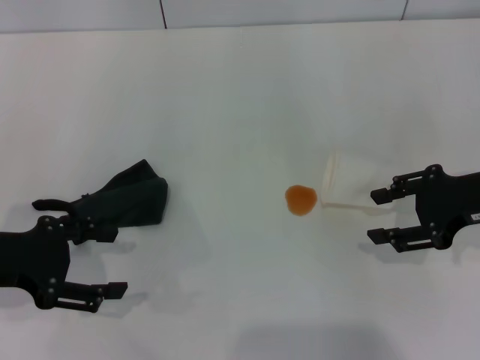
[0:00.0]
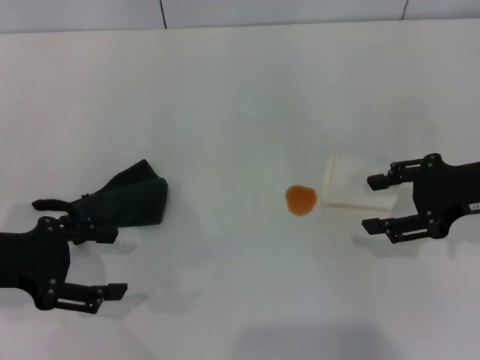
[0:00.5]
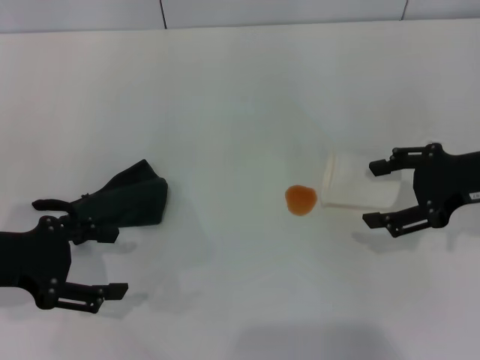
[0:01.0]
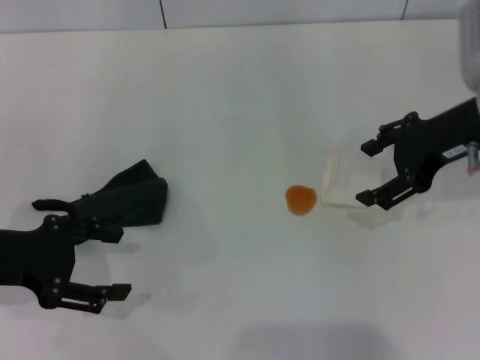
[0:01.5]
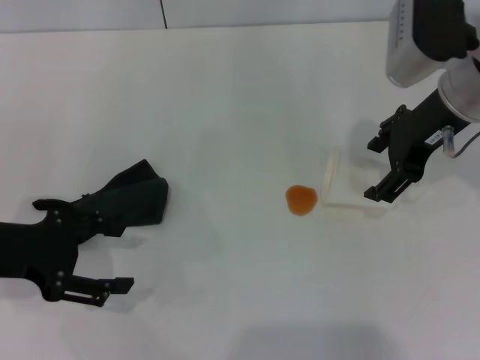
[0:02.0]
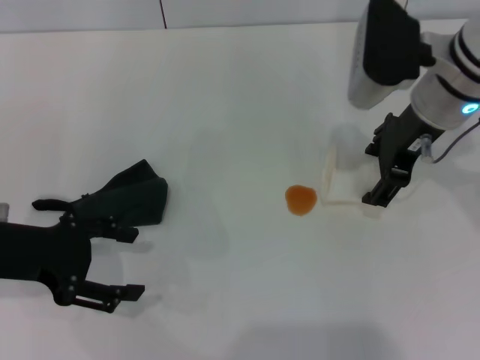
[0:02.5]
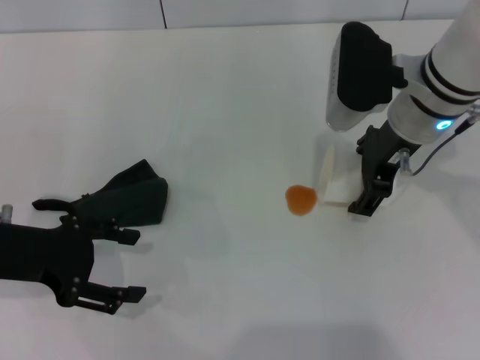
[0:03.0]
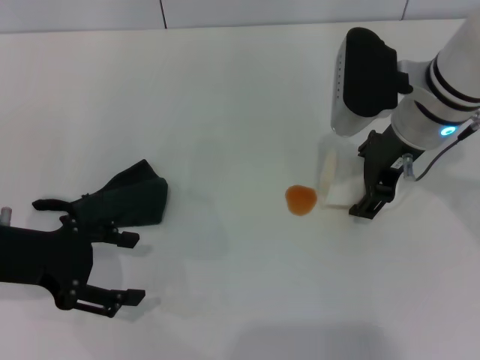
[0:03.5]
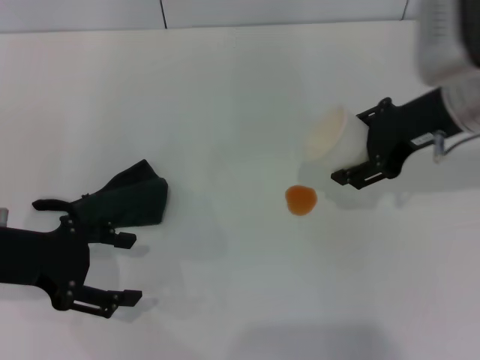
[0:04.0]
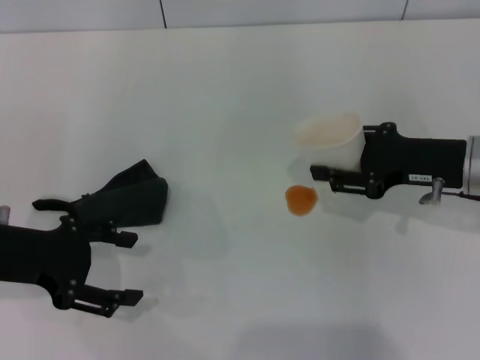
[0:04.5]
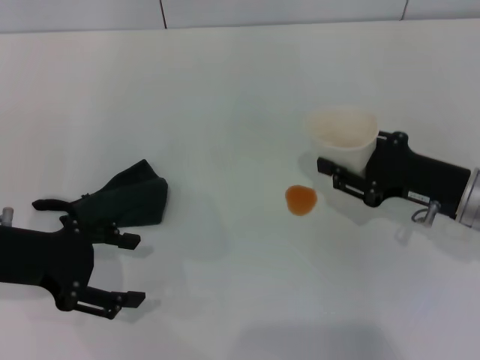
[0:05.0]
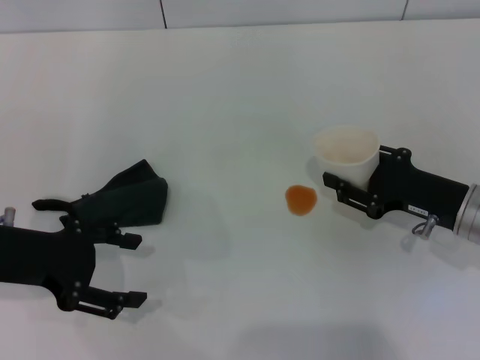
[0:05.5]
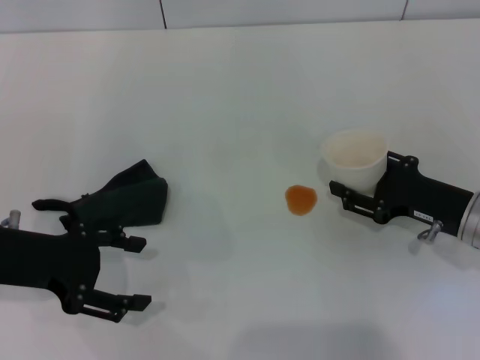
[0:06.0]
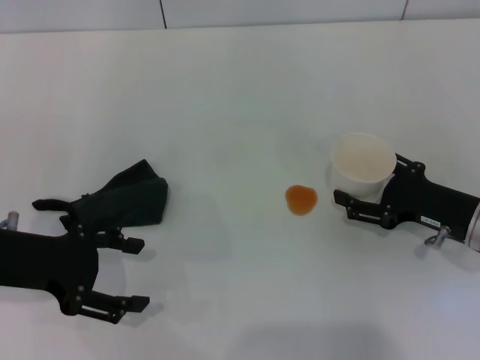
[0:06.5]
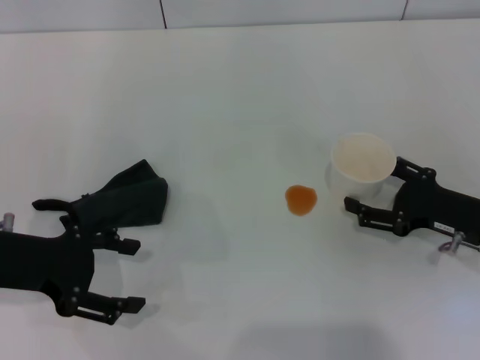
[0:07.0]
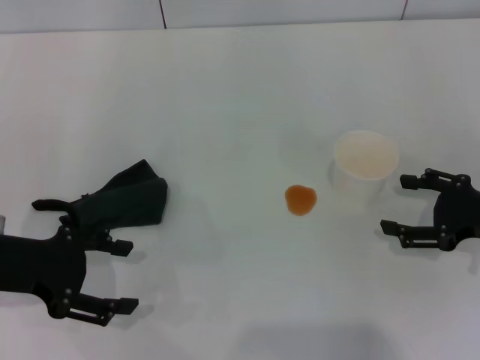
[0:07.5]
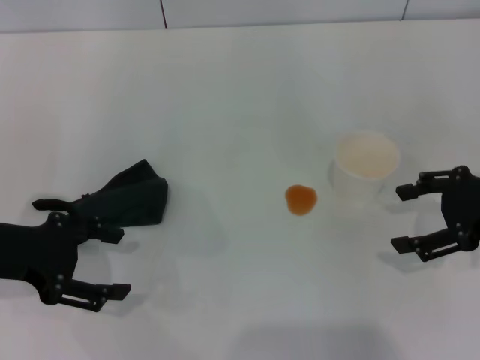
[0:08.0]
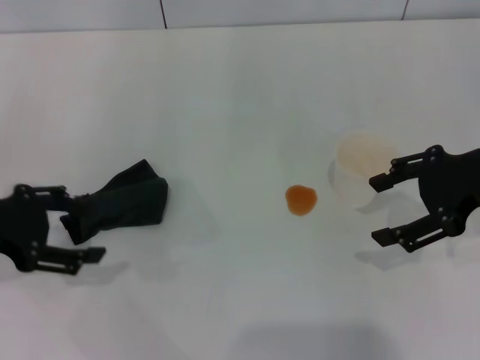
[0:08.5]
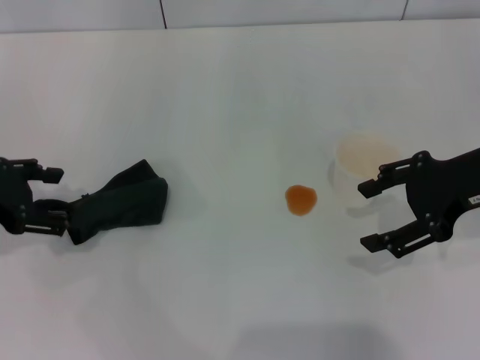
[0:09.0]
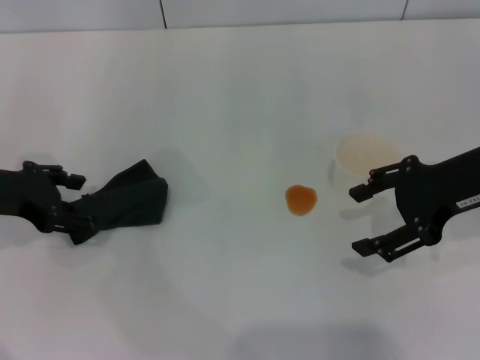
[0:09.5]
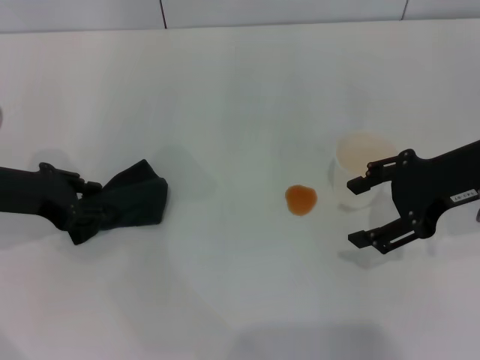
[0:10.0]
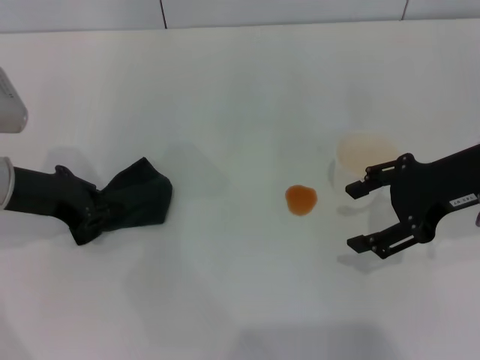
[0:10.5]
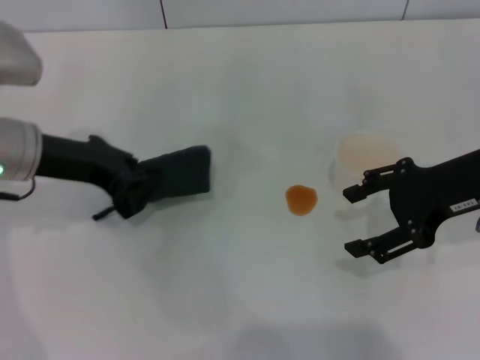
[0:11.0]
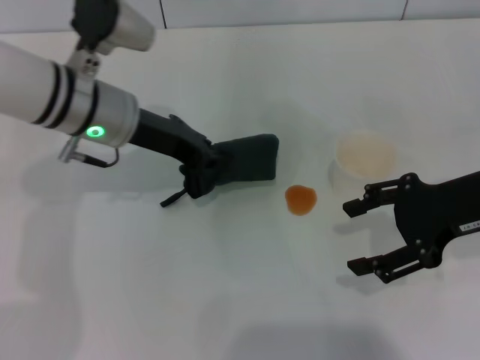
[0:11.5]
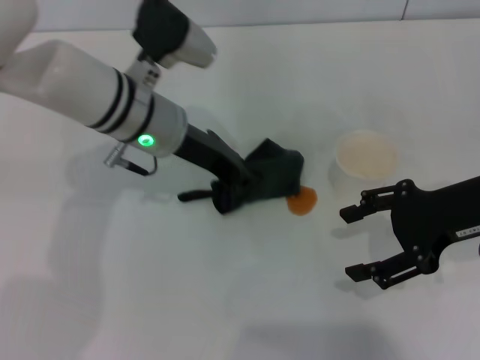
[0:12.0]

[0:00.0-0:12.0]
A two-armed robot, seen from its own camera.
Step, 0:00.0 to 0:03.0: Grasp the paper cup with the right gripper.
Step, 0:03.5 to 0:07.0: Stand the paper cup upright with the right gripper.
Step, 0:07.5 to 0:10.5: Grasp the rag with the left gripper.
0:00.0 to 0:02.0: The right gripper goes some 15 cm to the left, forward and upward, and opens up.
0:02.0 to 0:04.0: The right gripper closes up.
0:04.0 to 0:06.0: The right gripper travels downward and backward by some 15 cm, and closes its fingers.
0:06.0 to 0:08.0: The right gripper shifts some 10 cm upward, and opens up.
0:08.0 to 0:10.0: The right gripper shifts roughly 5 cm to the left; the left gripper moves forward, approximately 5 cm.
0:10.0 to 0:12.0: The left gripper shifts some 20 cm to the right, and closes its fingers.

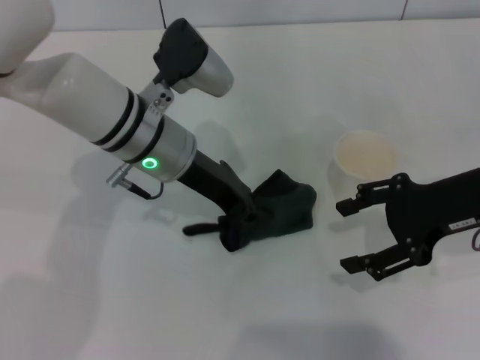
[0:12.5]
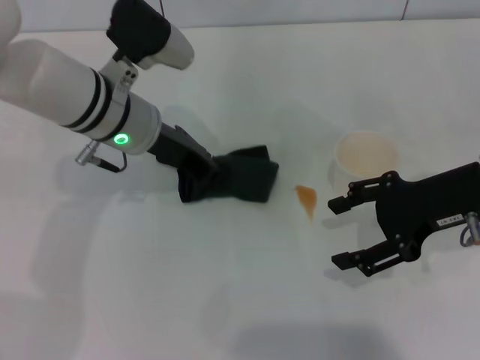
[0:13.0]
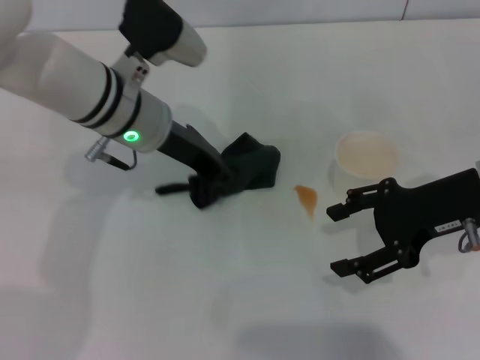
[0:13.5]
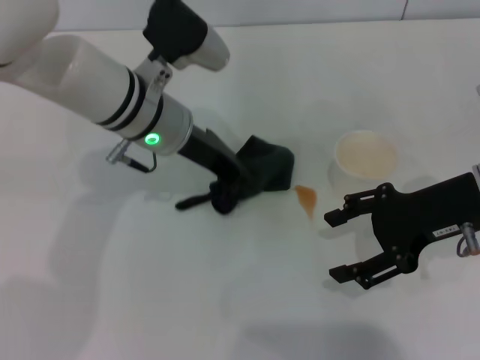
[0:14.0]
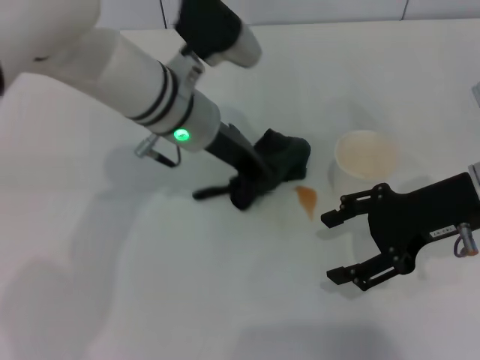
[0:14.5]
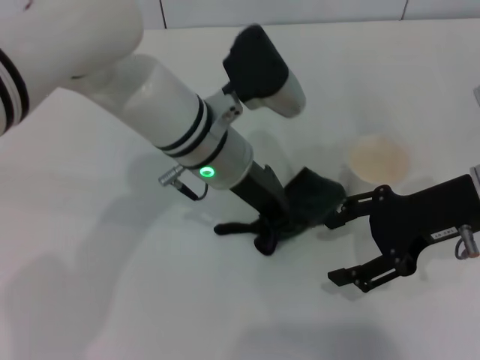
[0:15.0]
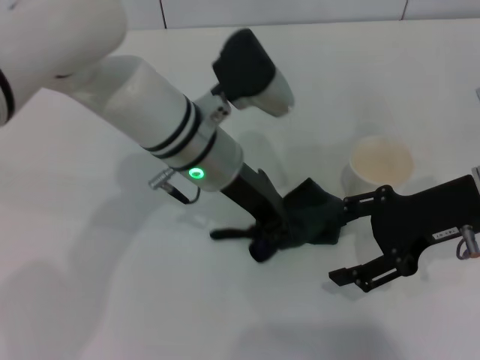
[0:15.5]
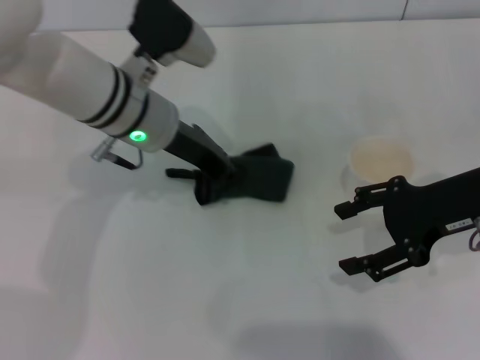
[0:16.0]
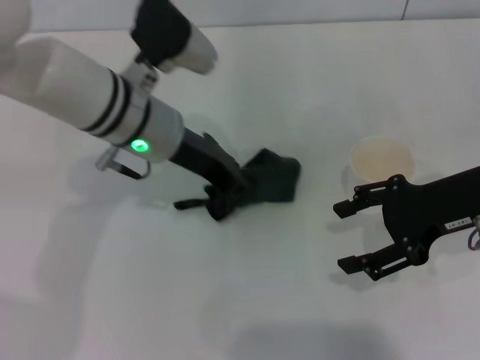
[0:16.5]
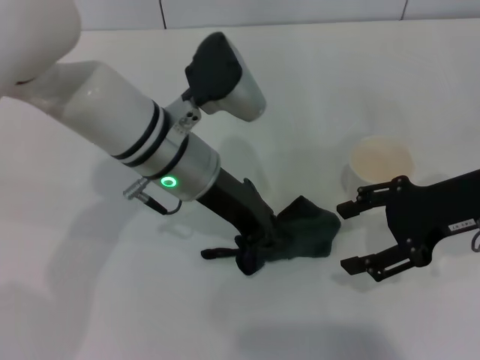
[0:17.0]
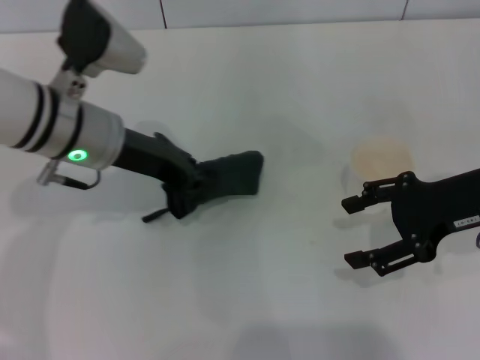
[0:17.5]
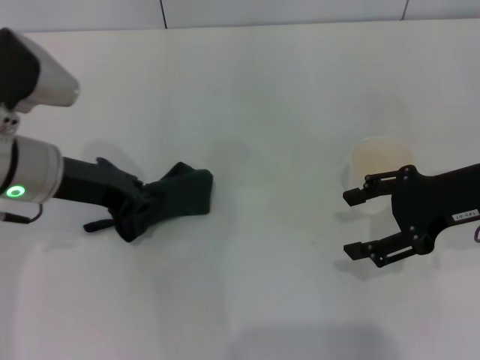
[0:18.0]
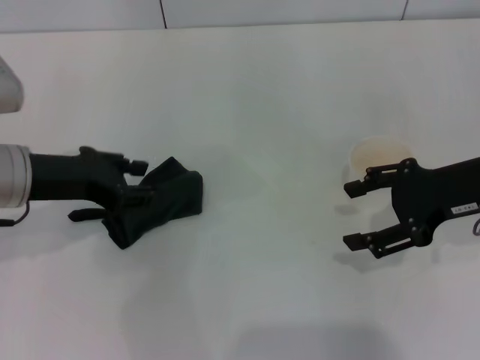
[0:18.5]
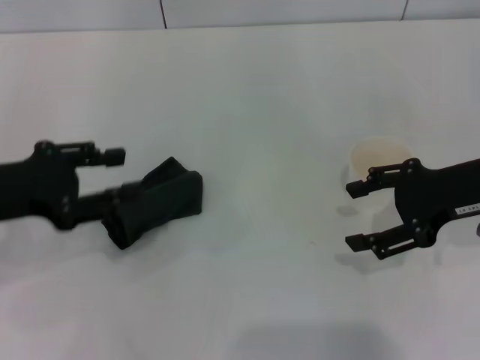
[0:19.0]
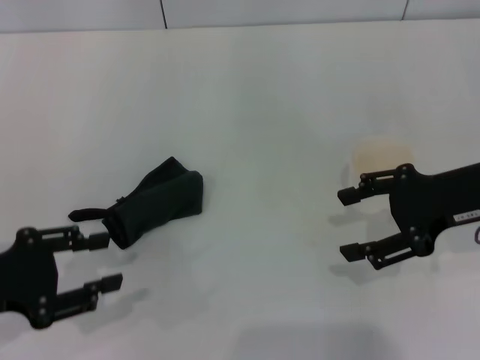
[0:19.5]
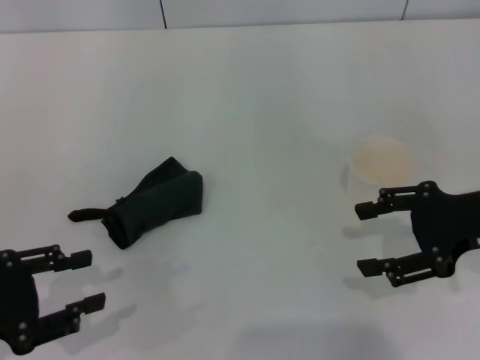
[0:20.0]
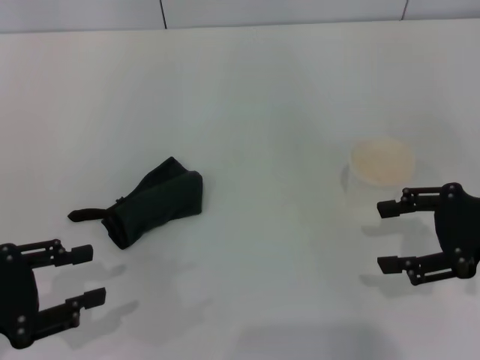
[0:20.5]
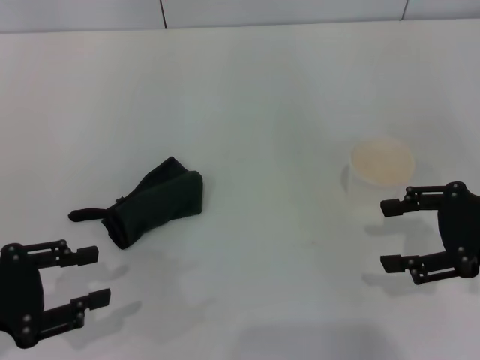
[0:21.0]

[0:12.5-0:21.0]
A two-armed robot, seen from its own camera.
Step, 0:12.5 to 0:18.0: Wipe the stains off the table with the left gripper.
0:16.5 to 0:19.0: The left gripper moves to the left and backward, roughly 20 cm, and opens up.
0:19.0 to 0:21.0: The right gripper shifts by approximately 5 cm. Meanwhile the left gripper travels backward by approximately 10 cm.

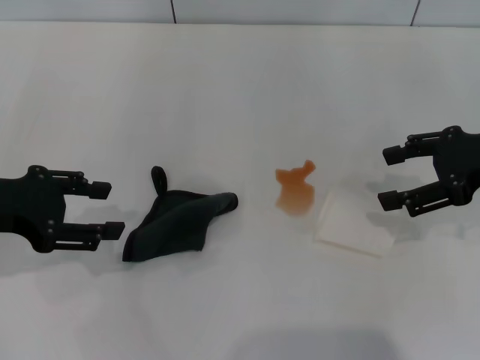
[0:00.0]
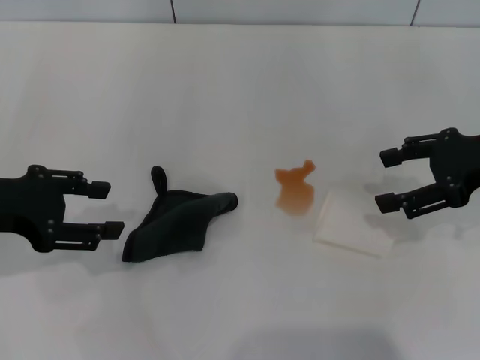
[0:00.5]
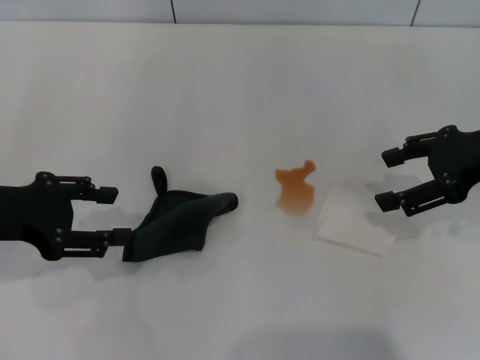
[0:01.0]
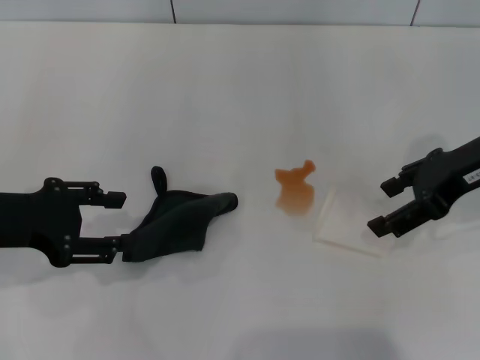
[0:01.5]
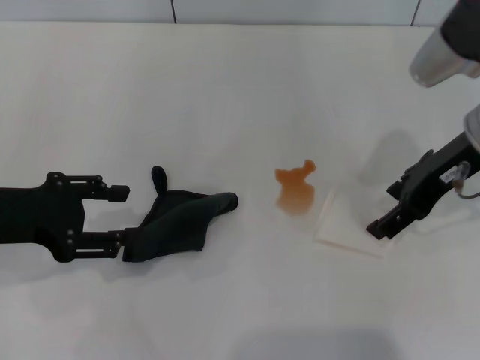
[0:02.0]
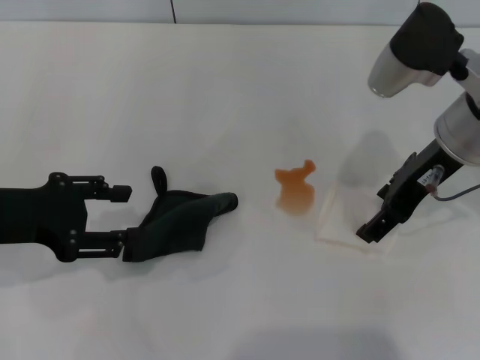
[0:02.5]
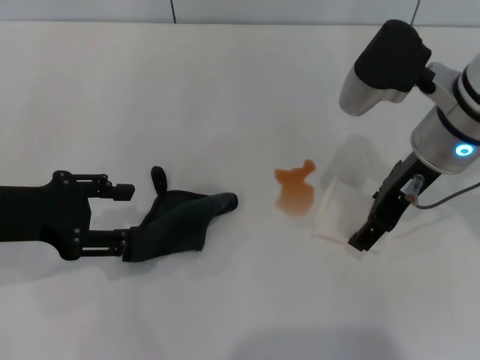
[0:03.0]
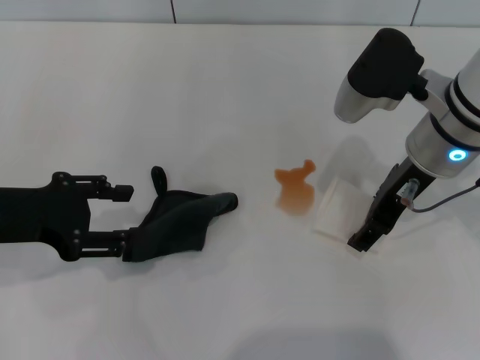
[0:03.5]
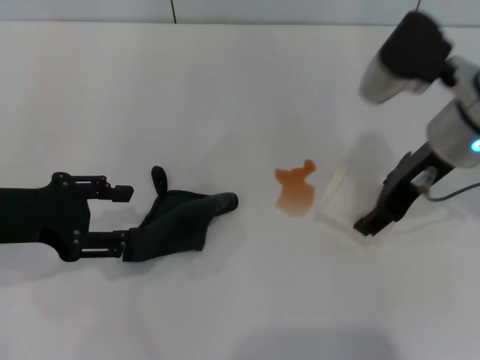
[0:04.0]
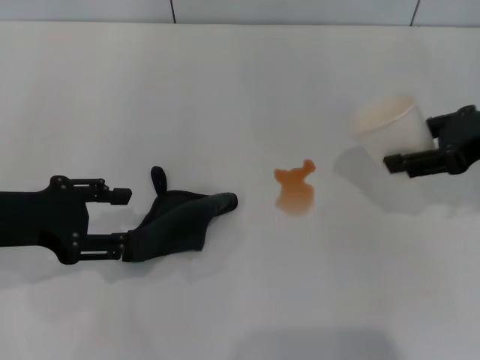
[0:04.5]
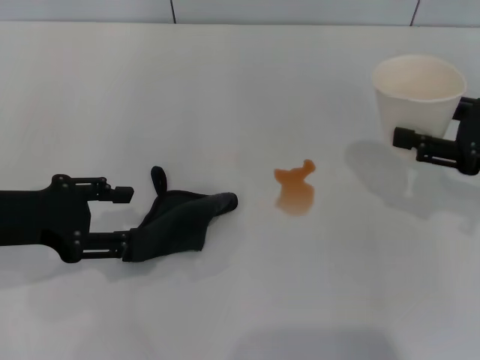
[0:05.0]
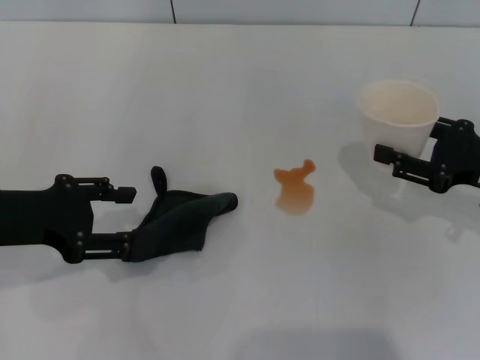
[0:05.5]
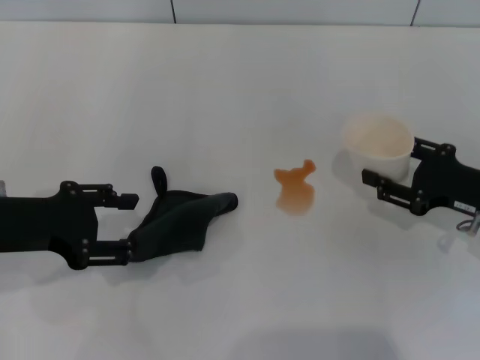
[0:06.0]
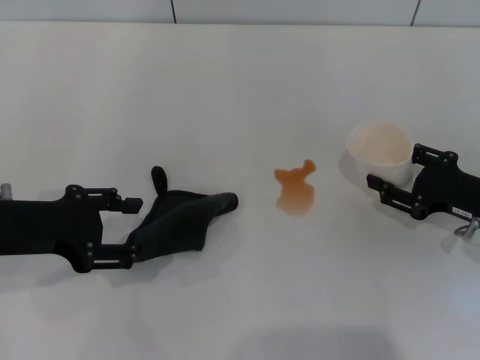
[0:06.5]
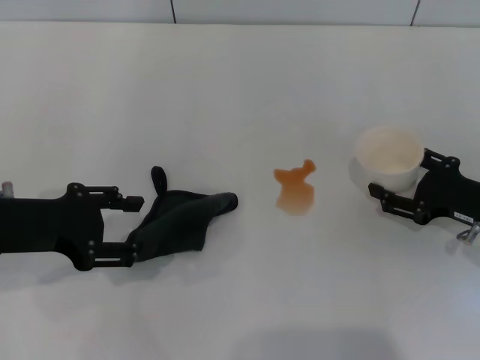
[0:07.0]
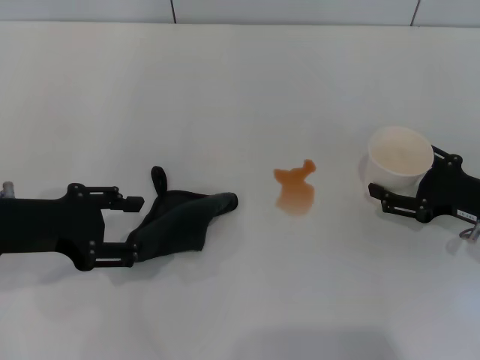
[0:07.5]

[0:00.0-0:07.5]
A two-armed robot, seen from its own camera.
Step, 0:00.0 to 0:03.5: Grasp the paper cup with the right gripper.
0:00.0 to 0:02.0: The right gripper goes some 10 cm to the left.
0:02.0 to 0:04.0: The right gripper closes up.
0:04.0 to 0:05.5: The right gripper heads to the right, downward and backward, covering approximately 15 cm, and closes its fingers.
0:05.5 to 0:07.5: The right gripper moves downward, about 5 cm, and opens.
